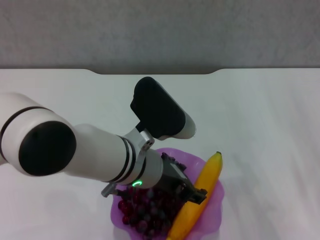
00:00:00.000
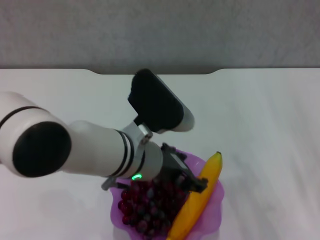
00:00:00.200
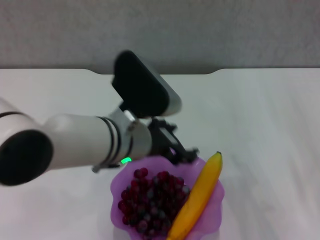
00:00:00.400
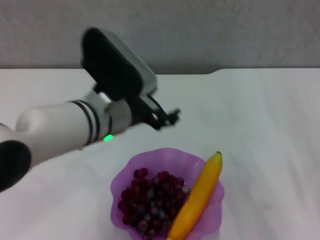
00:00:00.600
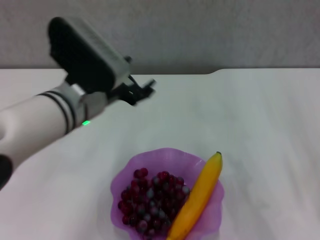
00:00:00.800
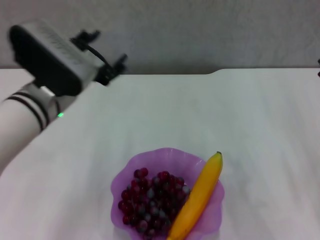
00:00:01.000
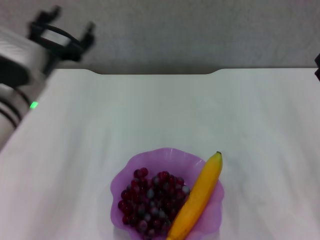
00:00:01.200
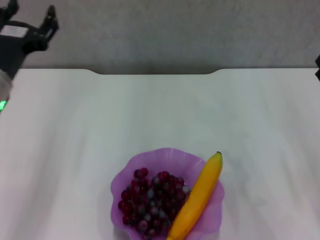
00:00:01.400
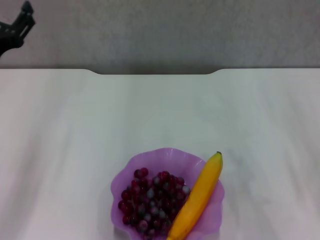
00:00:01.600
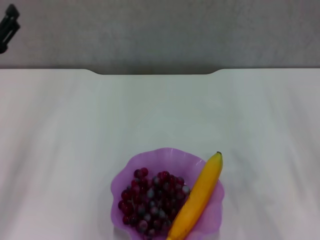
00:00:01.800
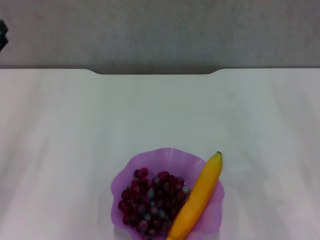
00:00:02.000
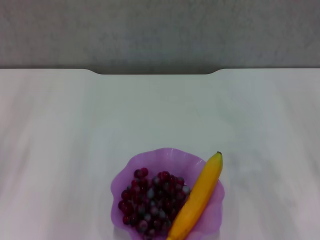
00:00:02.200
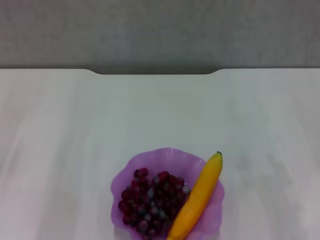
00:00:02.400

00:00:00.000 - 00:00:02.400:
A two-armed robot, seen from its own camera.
00:00:00.000 - 00:00:01.200: The left gripper shifts about 15 cm to the left.
00:00:01.200 - 00:00:02.400: The left gripper travels to the left by approximately 15 cm.
